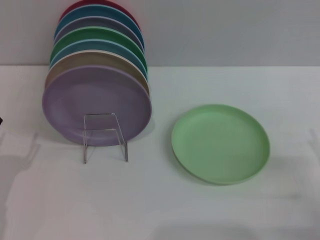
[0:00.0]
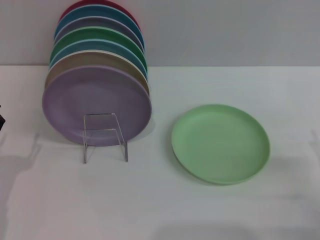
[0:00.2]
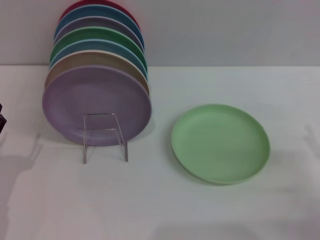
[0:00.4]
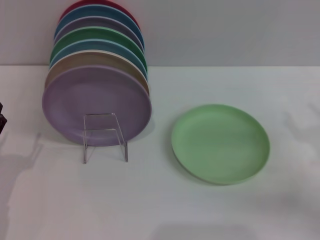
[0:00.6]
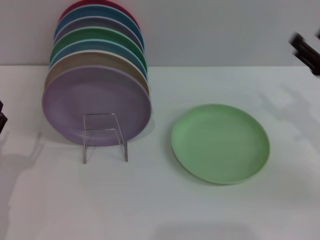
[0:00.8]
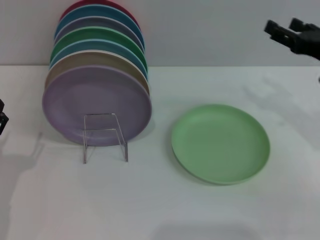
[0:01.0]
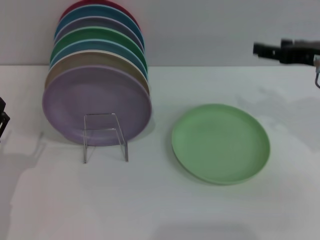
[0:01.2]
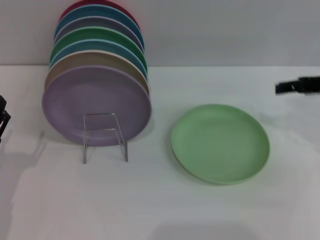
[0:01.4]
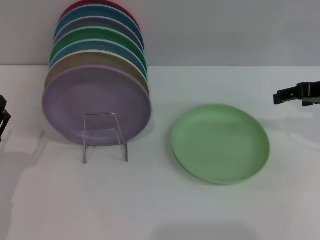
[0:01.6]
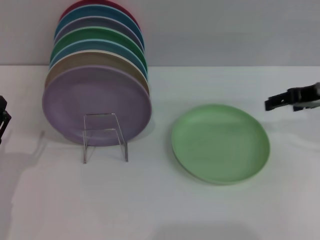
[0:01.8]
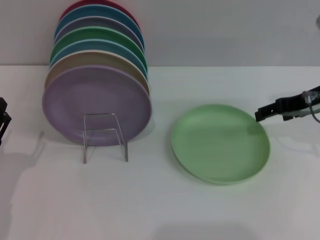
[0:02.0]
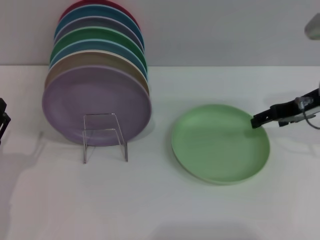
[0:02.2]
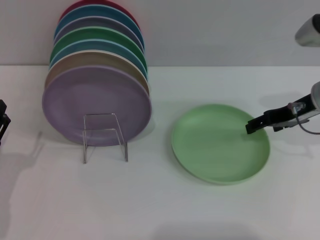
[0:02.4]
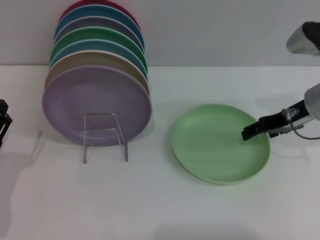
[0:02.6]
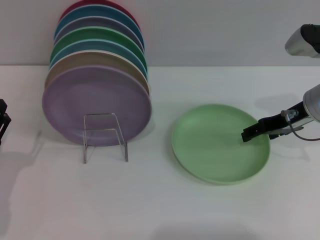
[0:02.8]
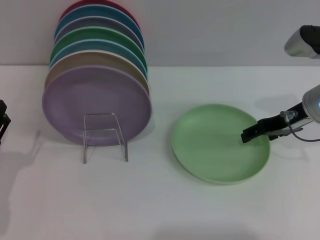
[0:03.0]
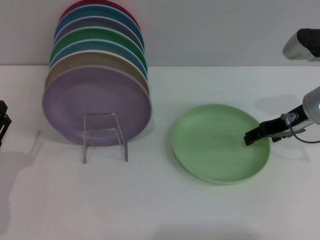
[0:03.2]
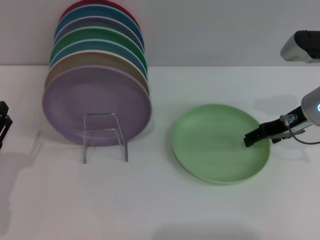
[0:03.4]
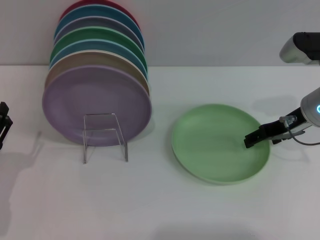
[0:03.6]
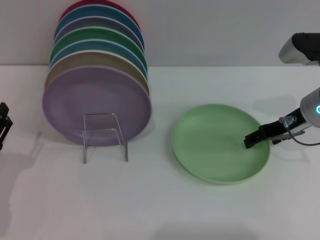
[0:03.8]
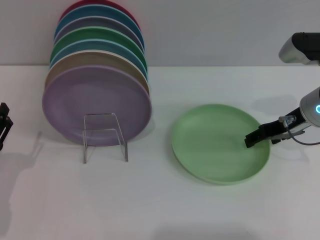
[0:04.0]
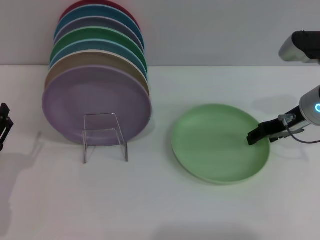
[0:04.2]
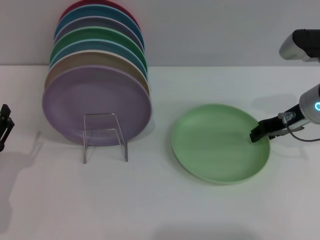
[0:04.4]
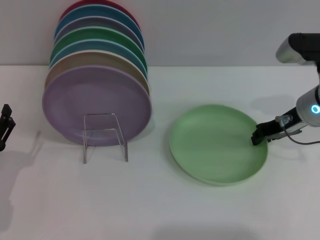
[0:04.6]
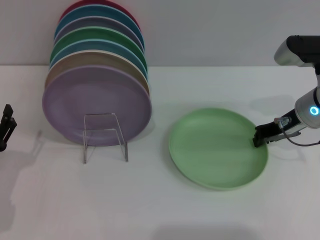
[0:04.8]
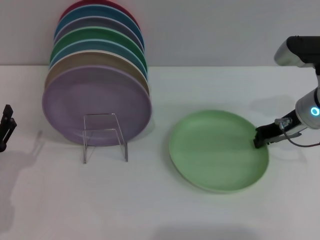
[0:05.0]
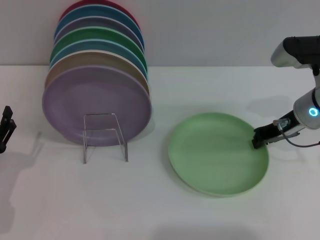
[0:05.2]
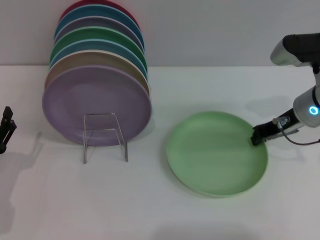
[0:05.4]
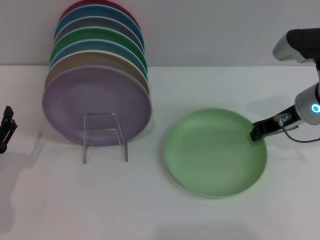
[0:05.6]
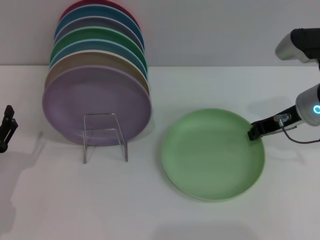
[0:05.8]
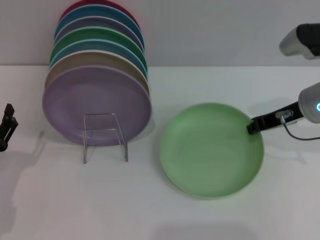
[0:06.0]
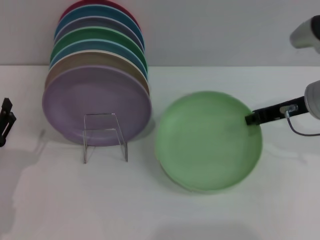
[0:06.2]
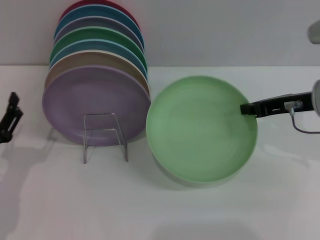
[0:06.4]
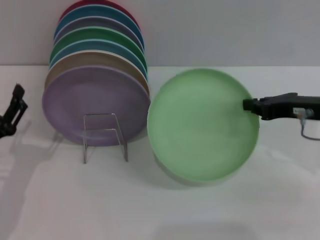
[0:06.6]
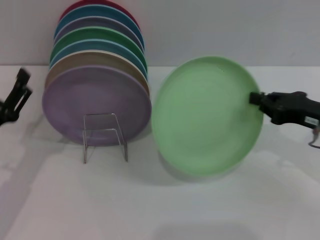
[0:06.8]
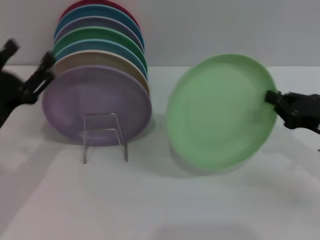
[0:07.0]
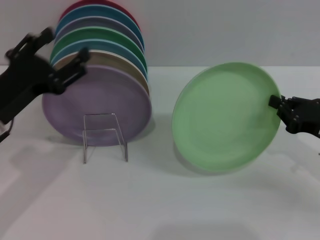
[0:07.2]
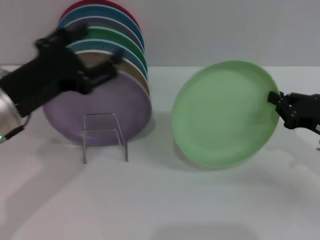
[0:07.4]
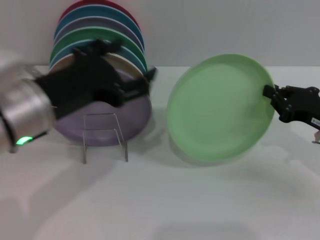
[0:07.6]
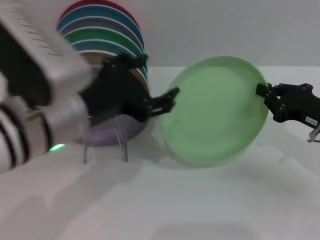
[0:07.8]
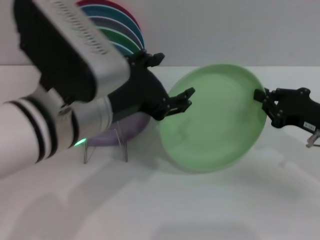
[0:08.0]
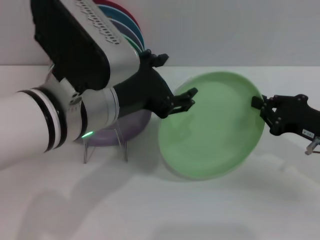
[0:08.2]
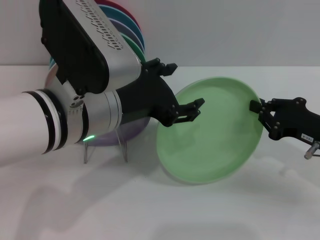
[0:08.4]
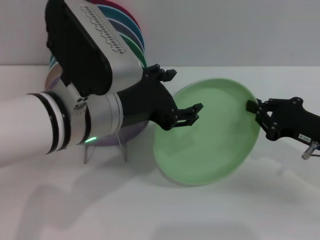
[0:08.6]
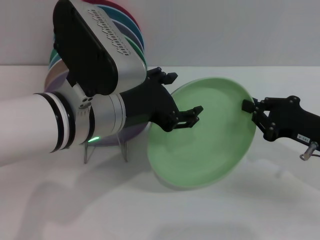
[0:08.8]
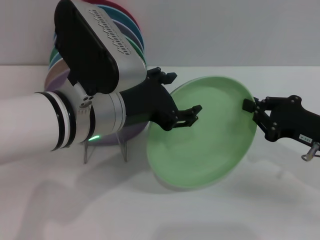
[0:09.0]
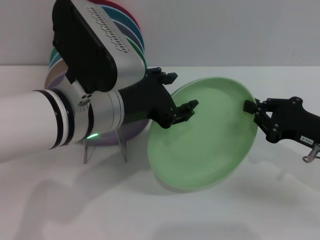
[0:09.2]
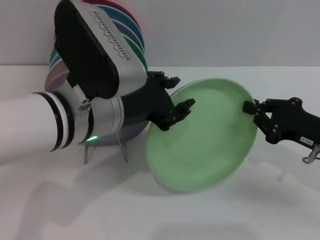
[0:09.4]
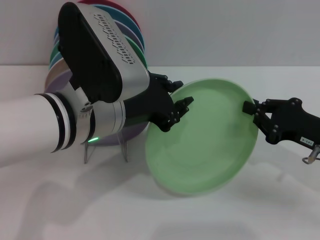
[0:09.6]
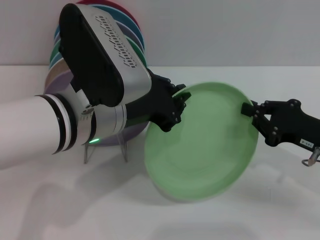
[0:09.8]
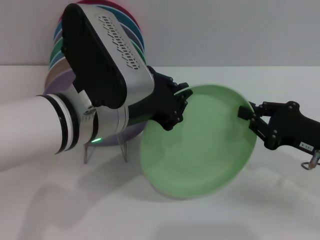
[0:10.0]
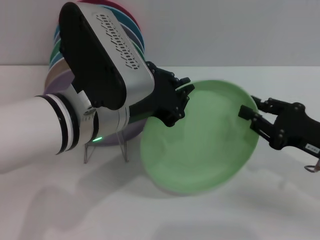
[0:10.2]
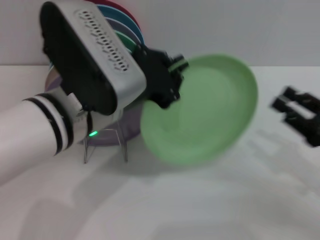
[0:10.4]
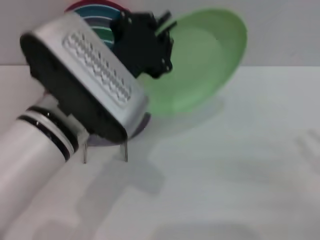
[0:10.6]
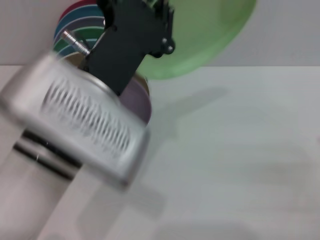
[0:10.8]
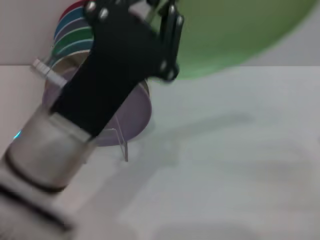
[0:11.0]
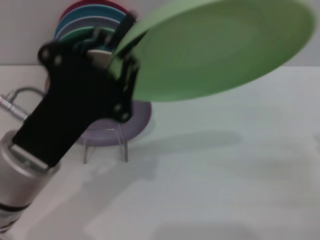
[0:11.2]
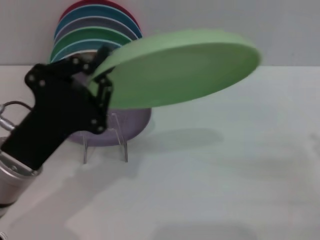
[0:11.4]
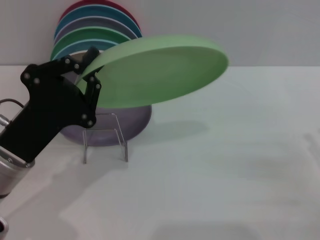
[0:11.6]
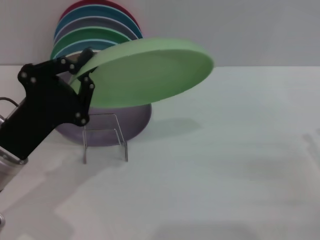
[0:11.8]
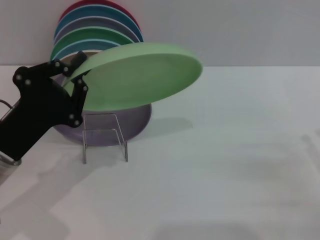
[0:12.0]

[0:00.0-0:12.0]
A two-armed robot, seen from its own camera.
Task of the whole recording: Grip the plate with one hand, pass it to the other, then set it on the shelf.
Step, 0:00.0 to 0:06.4: Pick up the plate with the right gripper.
Step, 0:06.6 to 0:10.4: Pass the plate from the right gripper to the left gripper.
0:00.0 to 0:01.6: The right gripper shifts about 20 cm upward and forward.
0:01.6 to 0:03.0: The right gripper goes approximately 5 cm downward.
0:03.0 to 0:04.4: Both grippers stay put.
0:04.4 to 0:06.0: The right gripper closes up.
0:06.0 to 0:07.6: The right gripper moves backward, to the right and downward, approximately 10 cm. Meanwhile the left gripper is displaced upward and to the right by some 20 cm.
0:07.6 to 0:09.0: The left gripper heads to the right, covering about 10 cm.
0:09.0 to 0:10.4: The left gripper closes up; the right gripper ends up approximately 5 cm from where it was, and opens.
0:10.4 to 0:12.0: The right gripper ends up some 5 cm from where it was. The left gripper shifts about 15 cm to the left and downward.

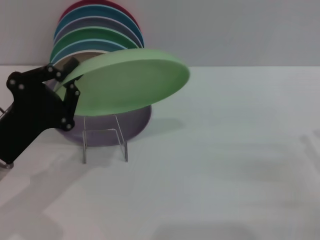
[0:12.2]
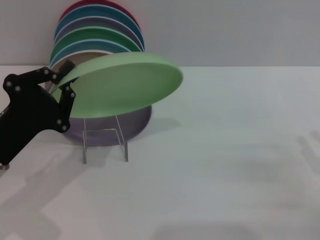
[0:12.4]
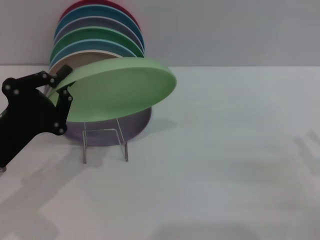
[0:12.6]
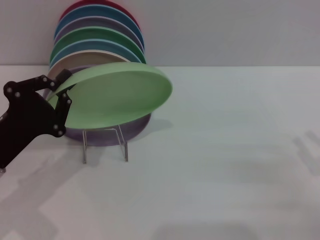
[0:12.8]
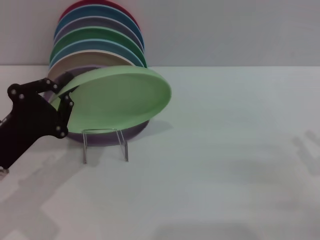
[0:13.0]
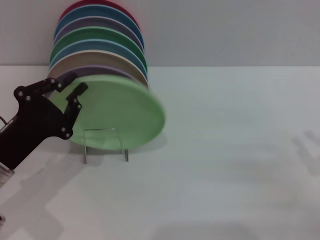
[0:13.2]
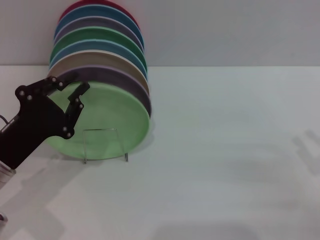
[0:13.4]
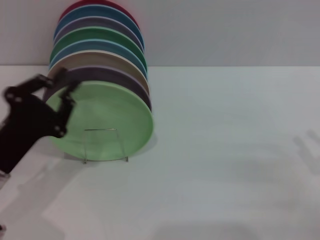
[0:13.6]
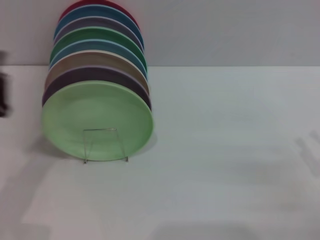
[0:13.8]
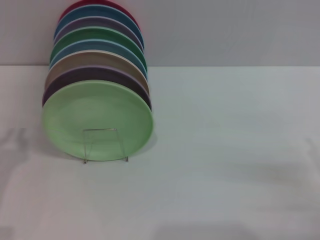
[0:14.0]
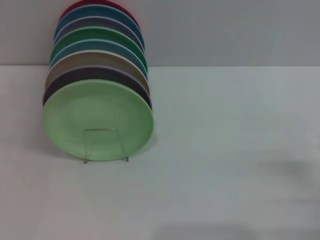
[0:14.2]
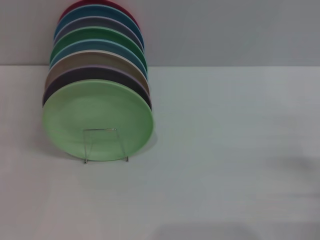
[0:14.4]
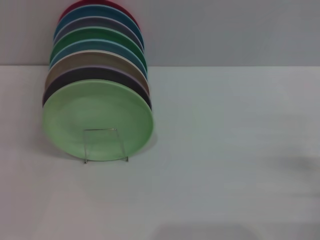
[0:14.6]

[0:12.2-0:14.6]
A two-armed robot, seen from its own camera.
Task of the whole recording: Grip the plate with one hand, pass it to the other, then set it on the shelf.
0:12.2 to 0:13.4: The grippers stay close to where they were, moving slightly.
0:13.4 to 0:14.6: The left gripper goes some 10 cm to the left, and opens its fingers.
